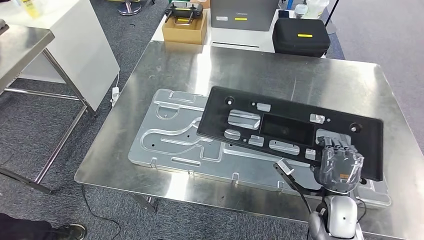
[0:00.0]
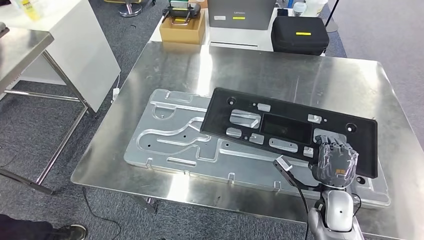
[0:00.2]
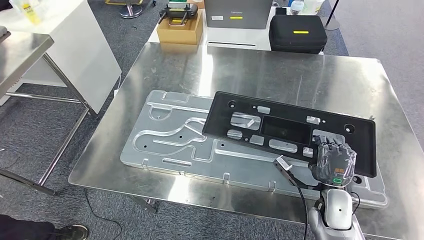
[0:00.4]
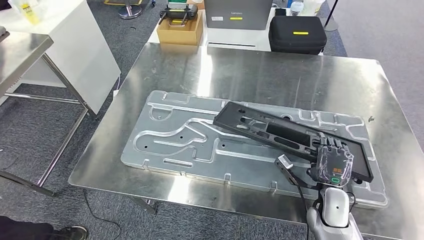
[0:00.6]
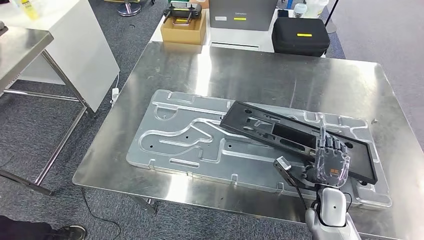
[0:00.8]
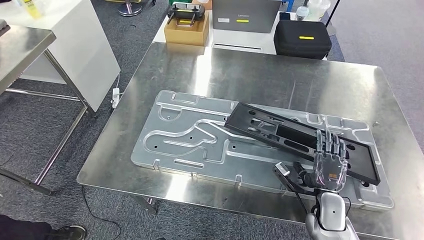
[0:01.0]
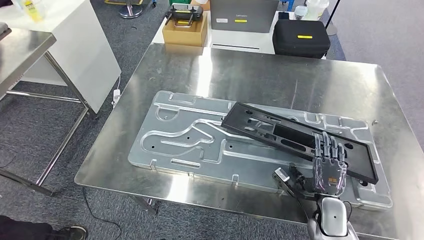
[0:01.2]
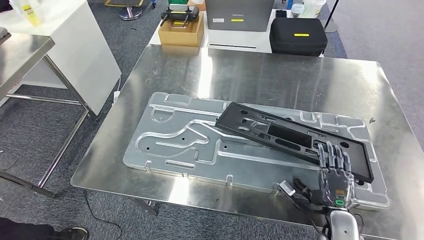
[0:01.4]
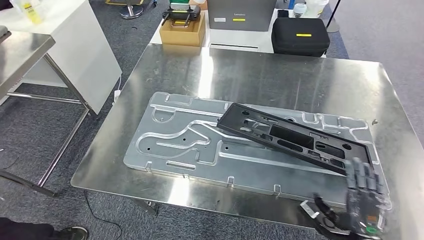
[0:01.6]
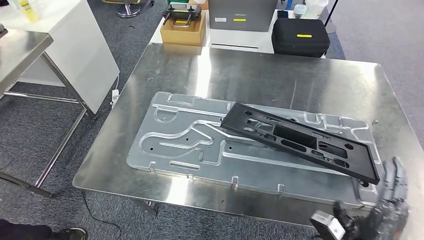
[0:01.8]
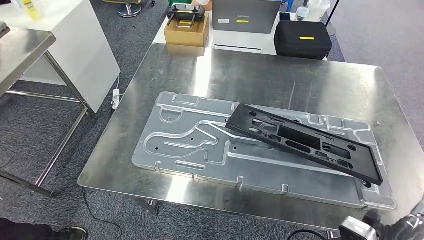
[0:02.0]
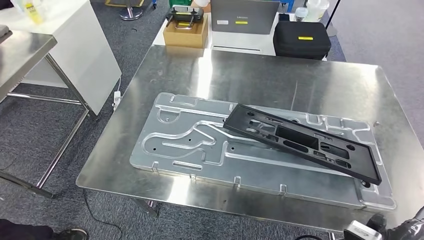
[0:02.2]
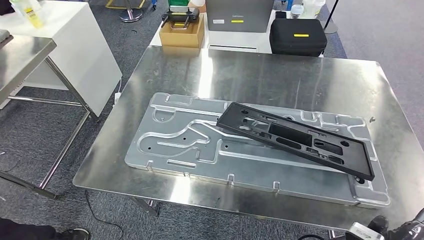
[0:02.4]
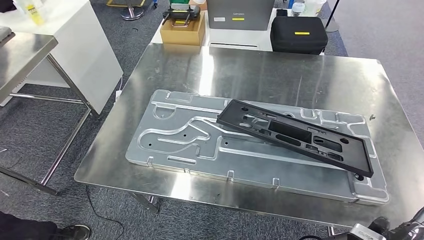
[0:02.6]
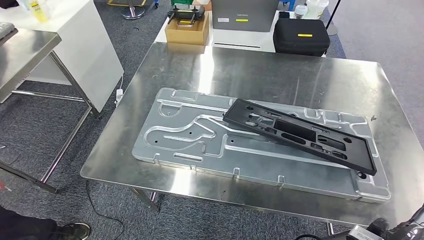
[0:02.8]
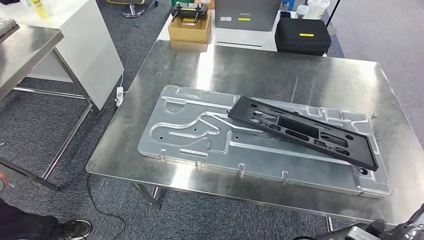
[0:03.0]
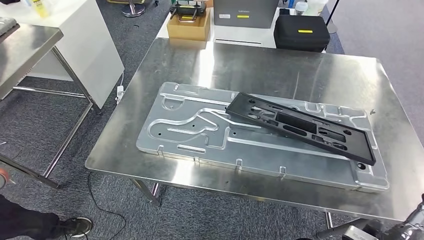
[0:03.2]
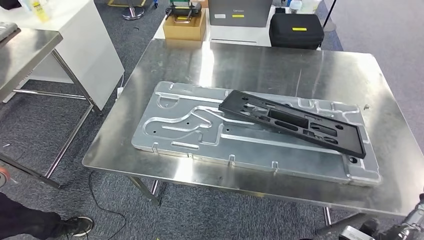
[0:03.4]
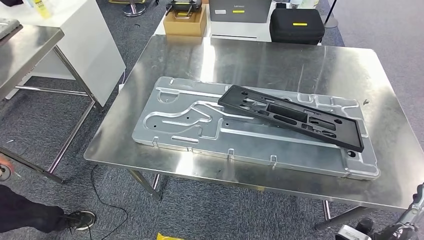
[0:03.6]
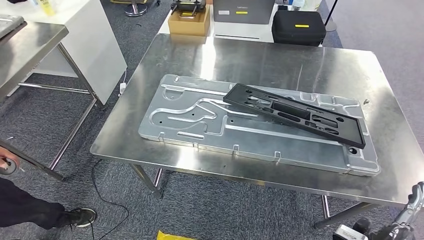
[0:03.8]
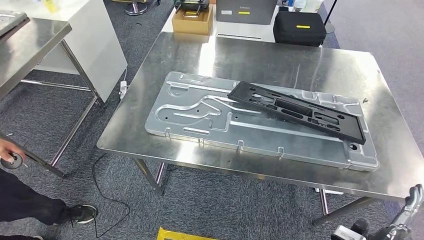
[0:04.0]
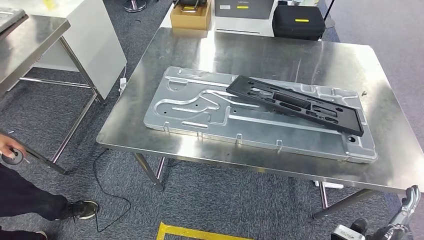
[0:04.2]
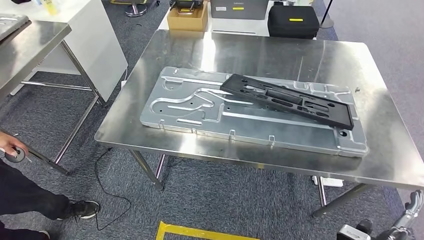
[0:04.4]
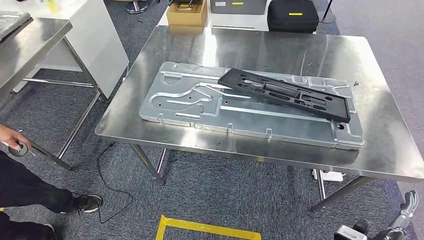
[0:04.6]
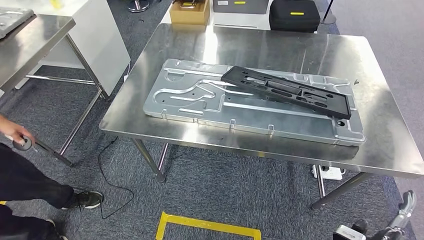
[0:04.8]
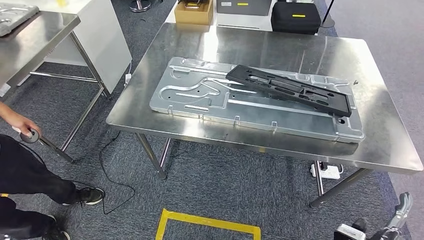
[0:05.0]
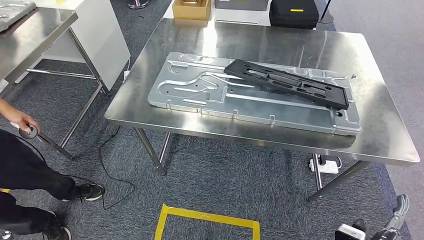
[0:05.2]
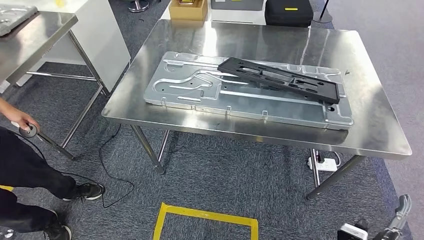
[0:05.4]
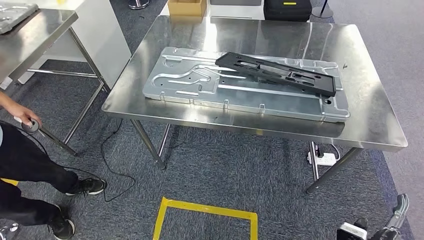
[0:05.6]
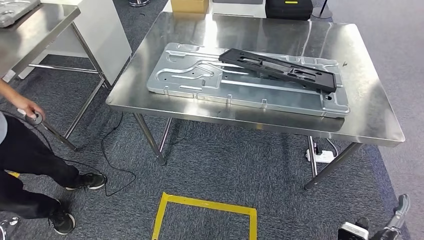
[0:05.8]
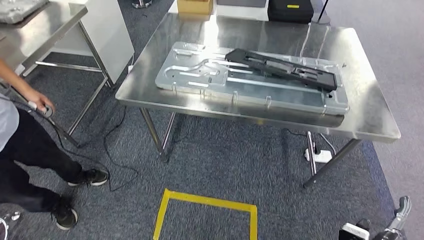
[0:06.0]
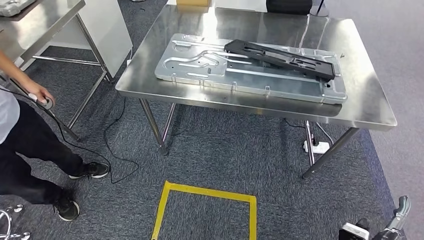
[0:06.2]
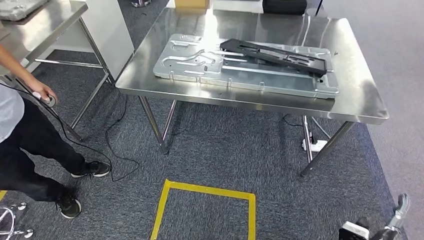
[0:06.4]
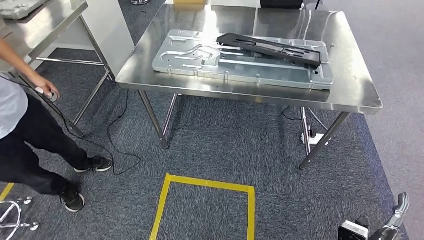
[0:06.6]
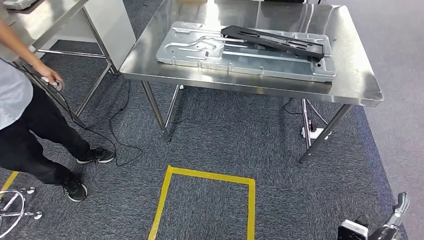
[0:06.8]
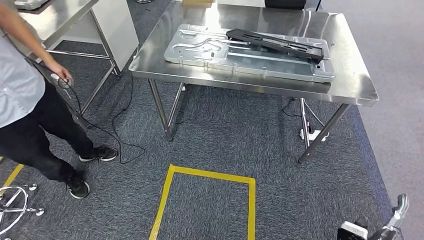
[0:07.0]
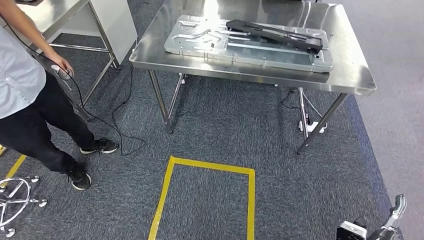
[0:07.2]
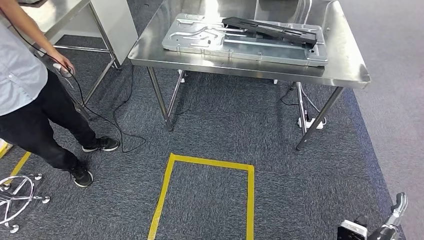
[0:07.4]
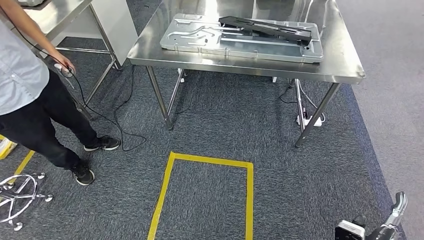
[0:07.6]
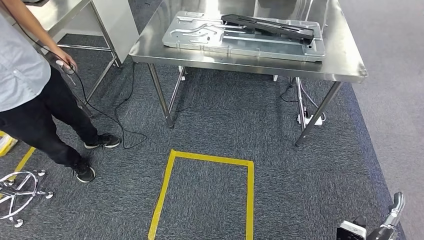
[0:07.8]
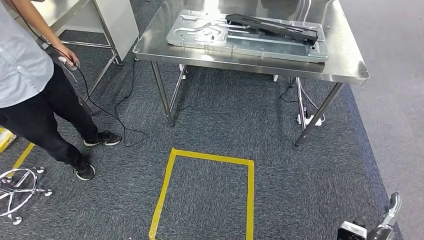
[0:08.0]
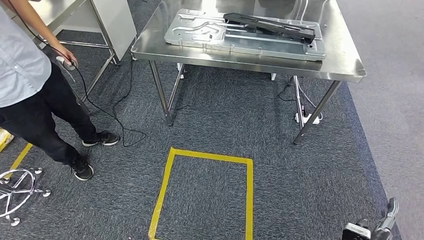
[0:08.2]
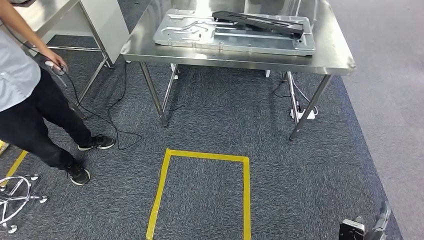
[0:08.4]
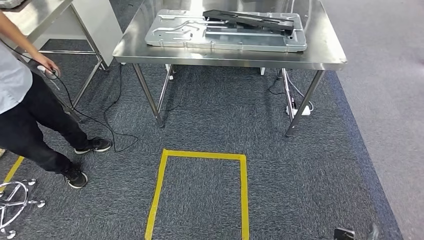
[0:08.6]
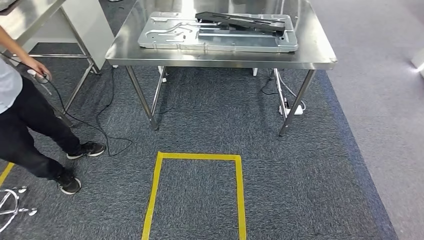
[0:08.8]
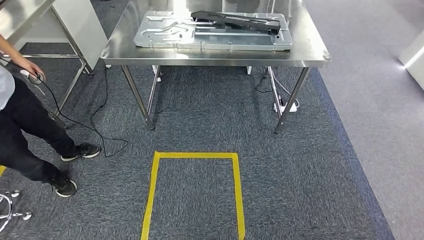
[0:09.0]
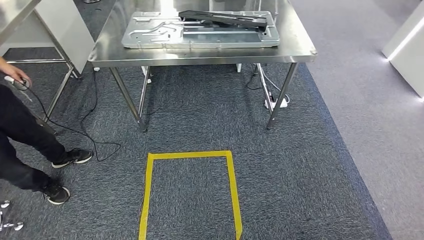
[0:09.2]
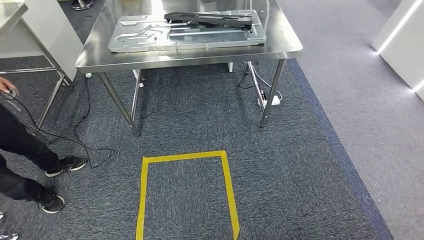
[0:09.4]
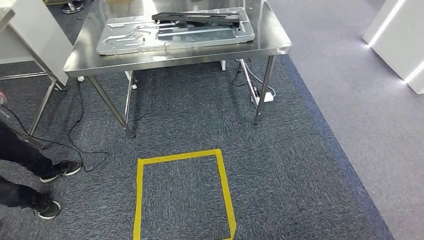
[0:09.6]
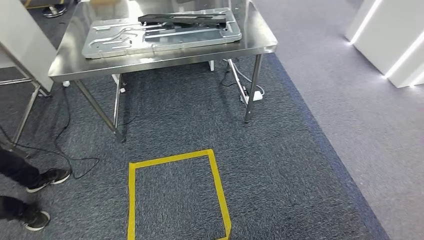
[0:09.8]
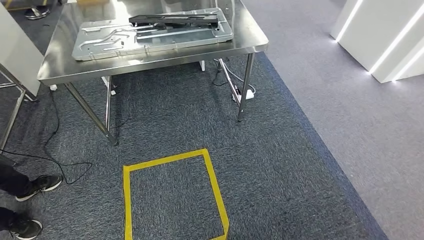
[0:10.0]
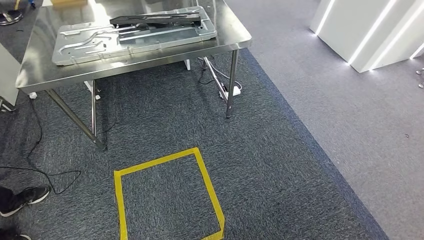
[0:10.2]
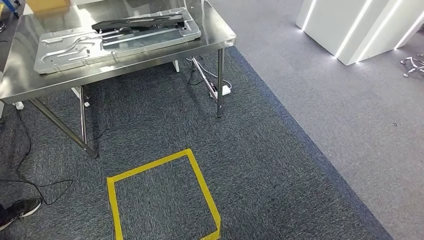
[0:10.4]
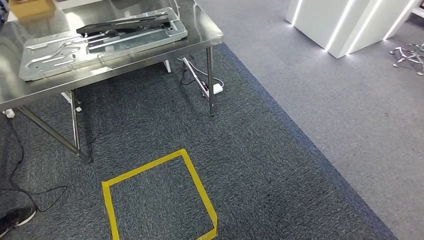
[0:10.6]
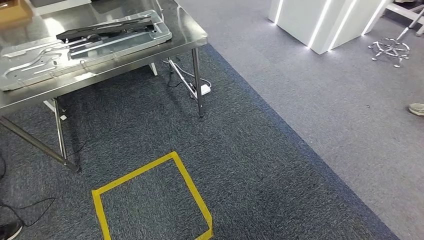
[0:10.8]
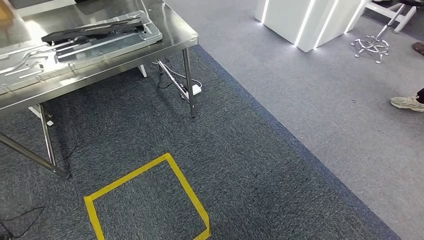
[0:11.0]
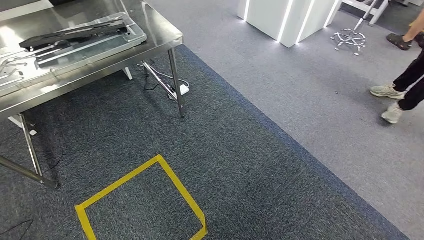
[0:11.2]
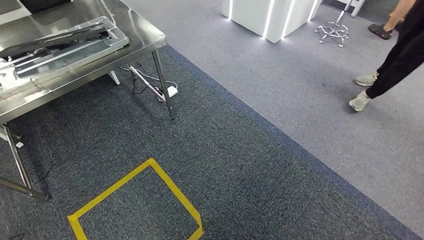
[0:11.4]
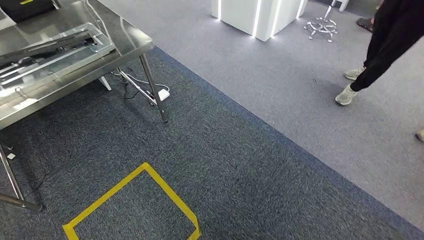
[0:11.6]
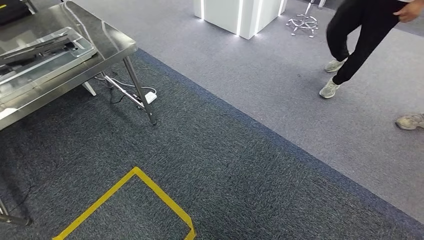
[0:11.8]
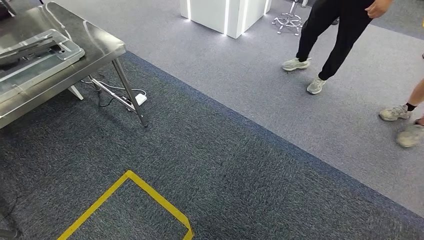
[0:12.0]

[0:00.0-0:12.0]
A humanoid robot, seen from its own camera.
Step, 0:00.0 to 0:06.0: Insert the large material into the corresponding slot on the workbench.

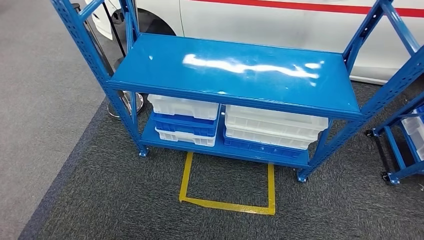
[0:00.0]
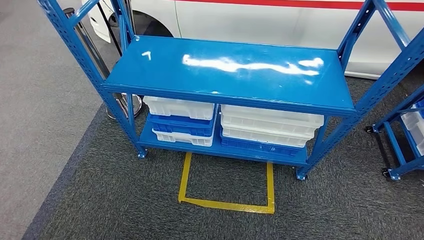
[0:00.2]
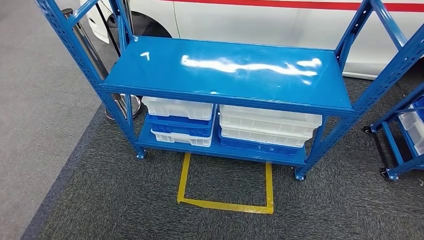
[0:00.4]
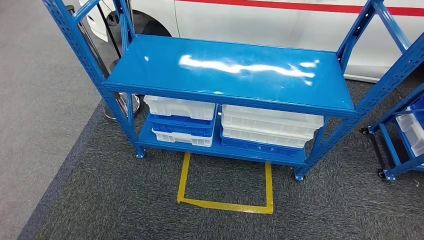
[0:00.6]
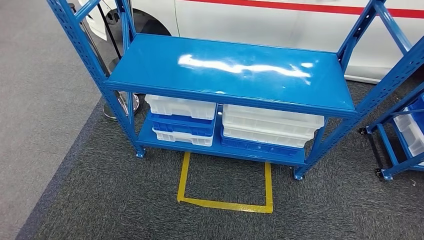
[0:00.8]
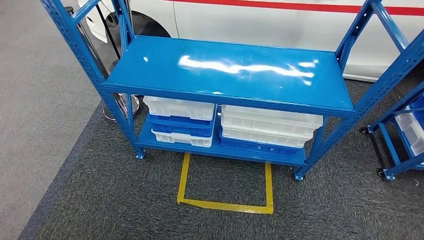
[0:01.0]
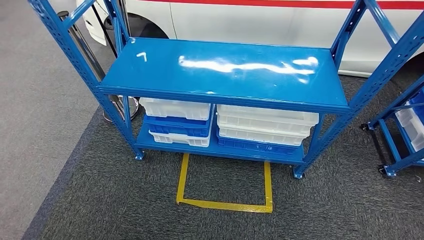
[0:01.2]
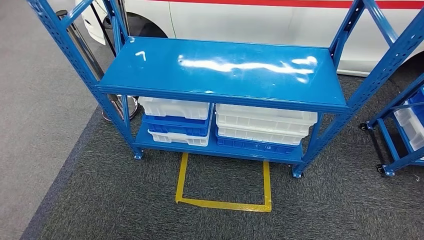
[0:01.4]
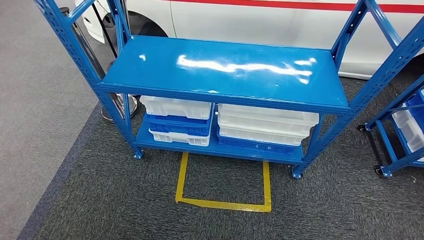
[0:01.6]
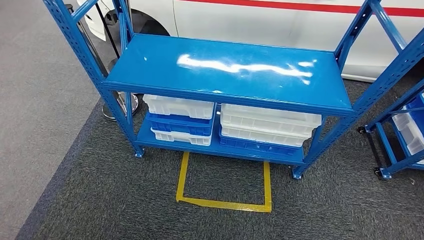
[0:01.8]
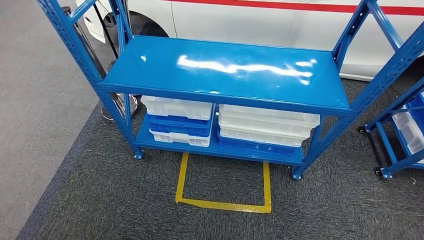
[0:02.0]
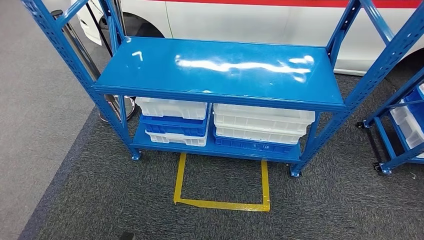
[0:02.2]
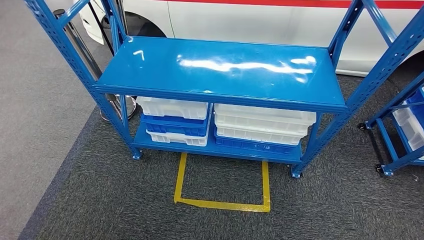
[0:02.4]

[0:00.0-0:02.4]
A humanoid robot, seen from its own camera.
Step, 0:00.0 to 0:02.4: Move to the initial position of the shelf.
0:01.2 to 0:02.4: The right hand travels backward and back again, roughly 5 cm each way.
